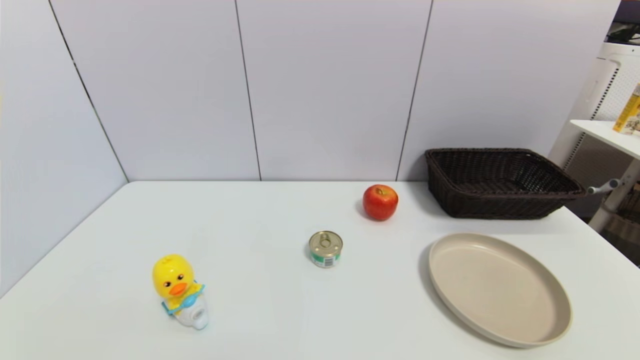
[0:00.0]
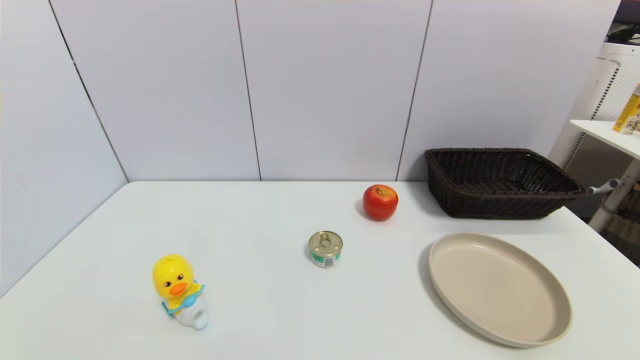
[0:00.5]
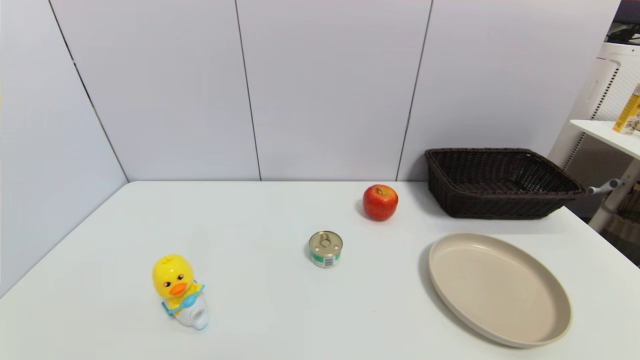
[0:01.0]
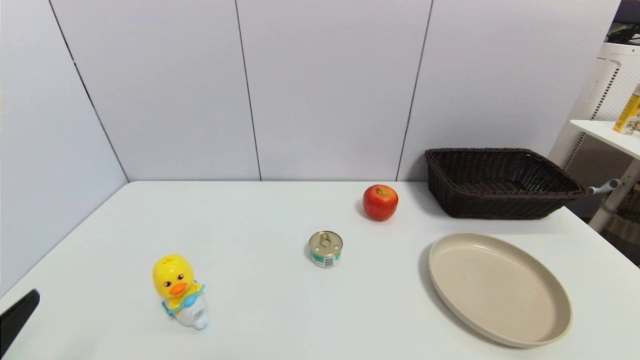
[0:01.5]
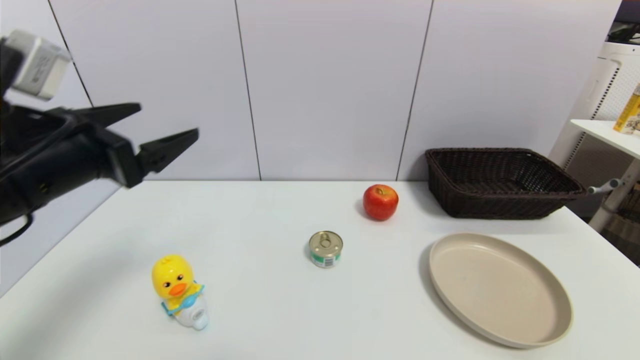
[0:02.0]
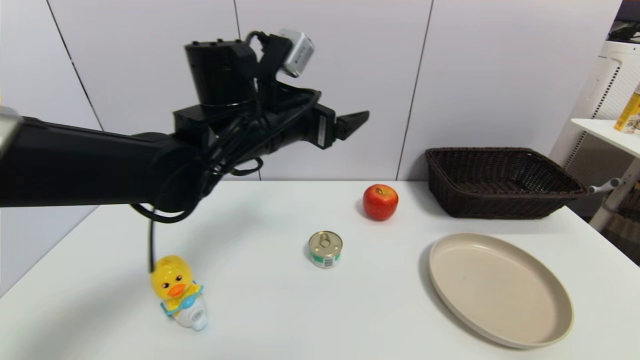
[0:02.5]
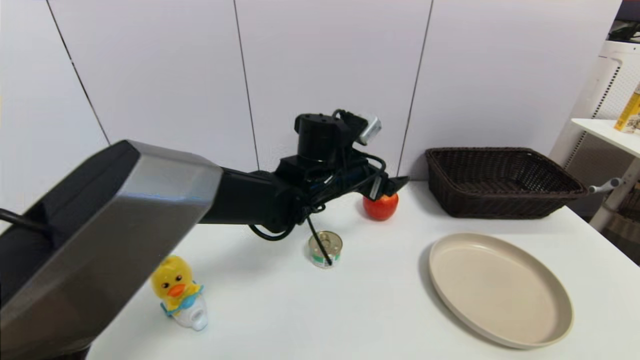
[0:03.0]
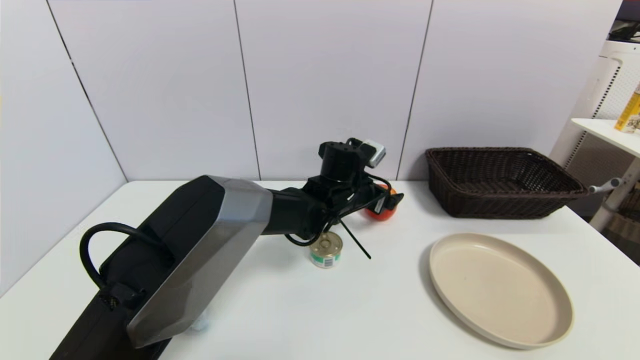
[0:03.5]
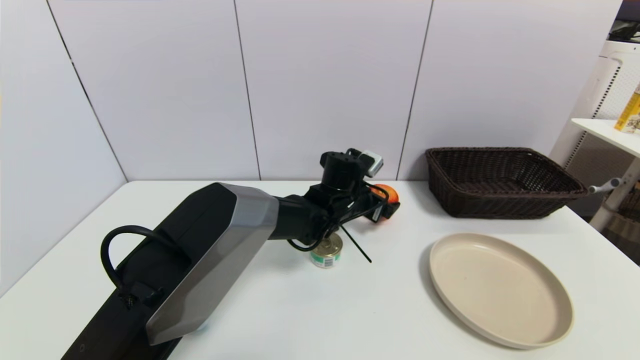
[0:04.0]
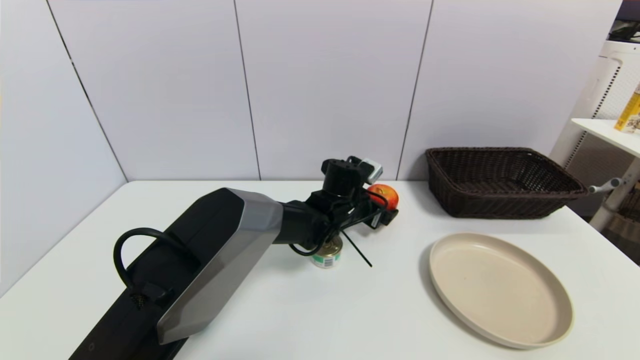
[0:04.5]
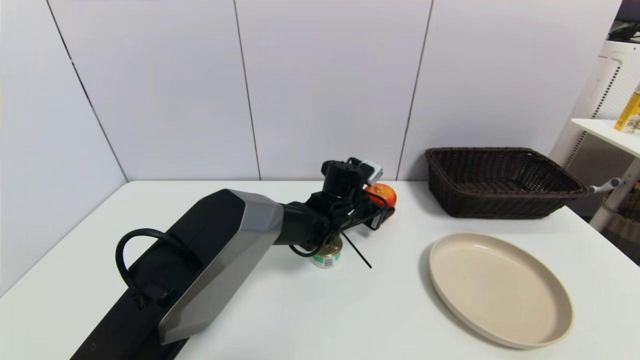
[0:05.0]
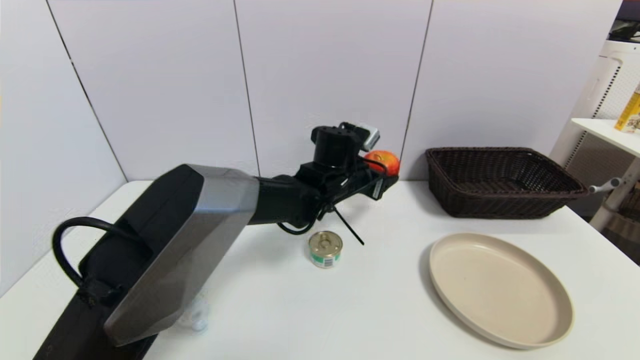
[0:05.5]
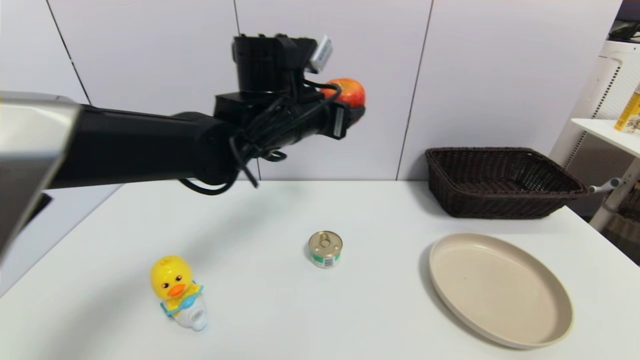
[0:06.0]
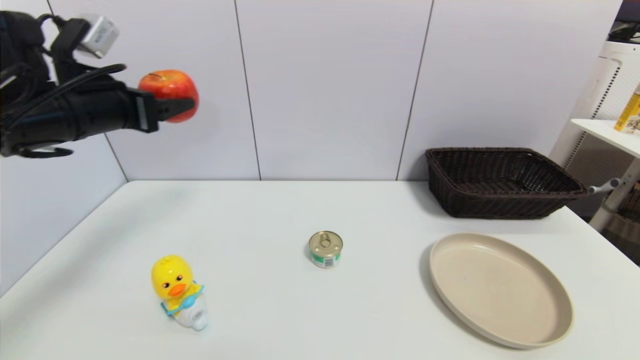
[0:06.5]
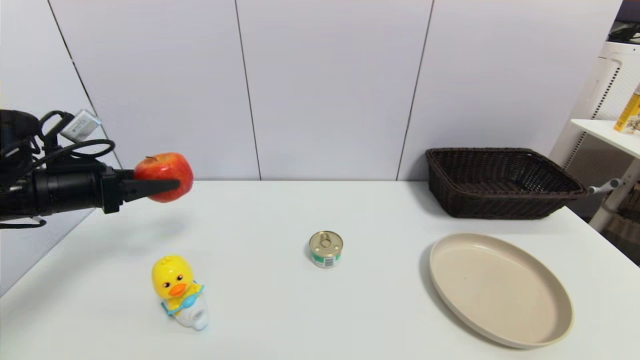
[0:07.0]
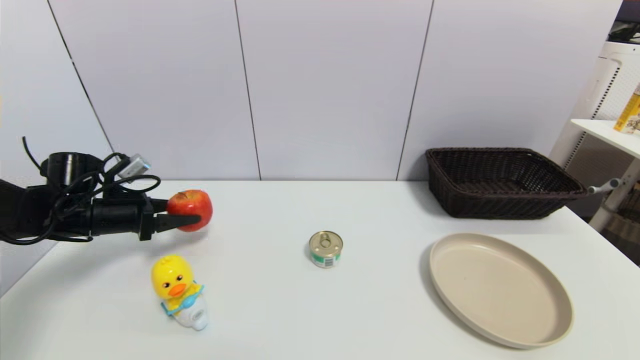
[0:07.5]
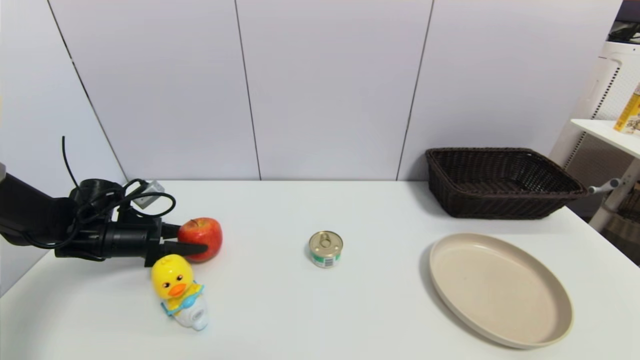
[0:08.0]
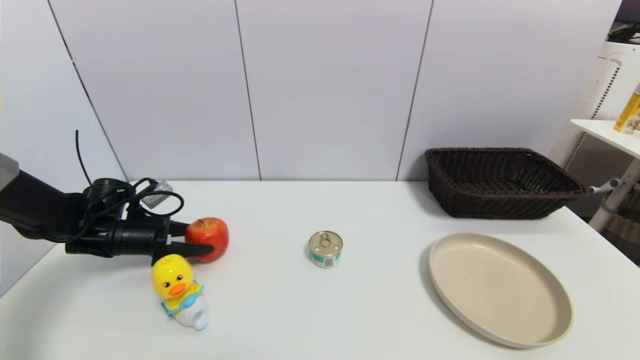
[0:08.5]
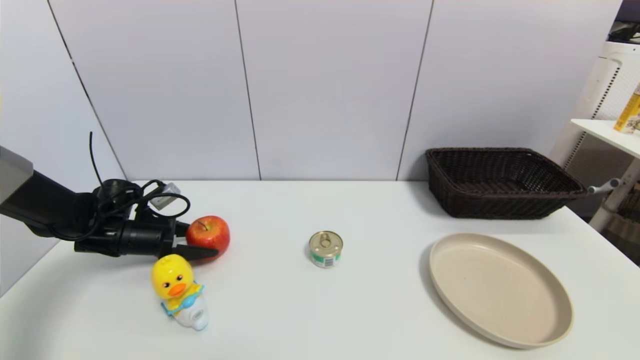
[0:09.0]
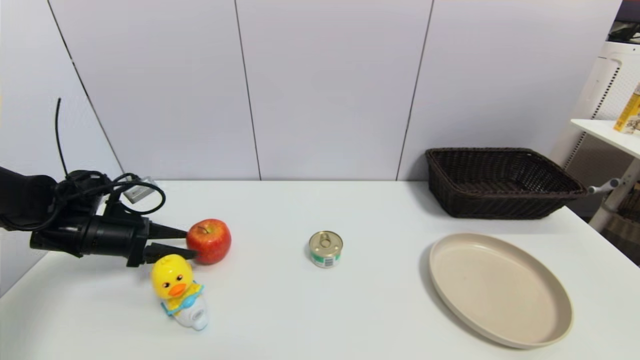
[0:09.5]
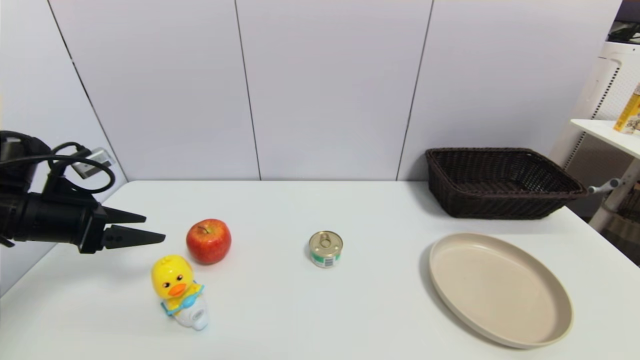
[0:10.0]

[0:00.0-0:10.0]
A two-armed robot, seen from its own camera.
Task of the whole recording: put the apple in the designated position.
Step, 0:01.5 to 0:04.5: Grasp the apple with left gripper.
Step, 0:05.0 to 0:09.5: Place the apple on the table with left gripper.
0:00.0 to 0:02.0: The left gripper travels forward and upward by approximately 30 cm.
0:02.0 to 0:04.0: The left gripper is displaced to the right, downward and forward by roughly 40 cm.
0:04.0 to 0:06.0: The left gripper heads upward and to the left, covering some 20 cm, and closes up.
0:06.0 to 0:08.0: The left gripper moves to the left and downward, about 35 cm.
0:08.0 to 0:10.0: The left gripper heads upward and backward, covering roughly 15 cm, and opens.

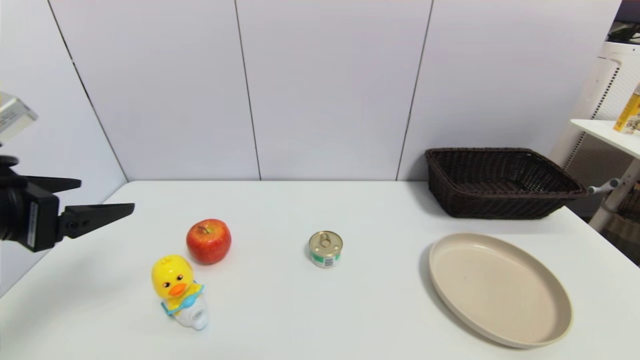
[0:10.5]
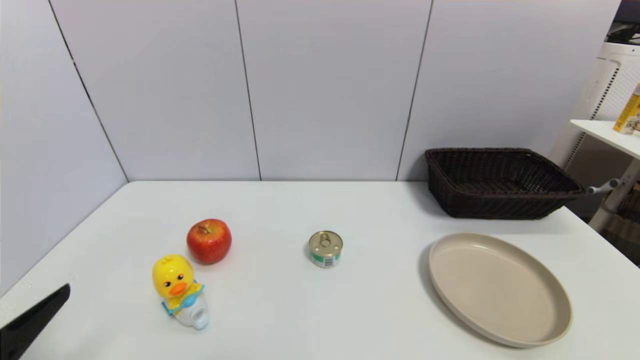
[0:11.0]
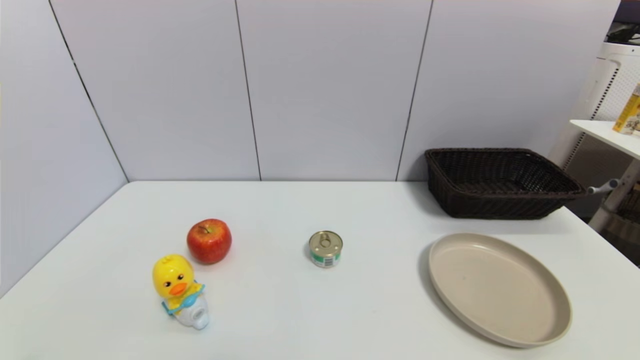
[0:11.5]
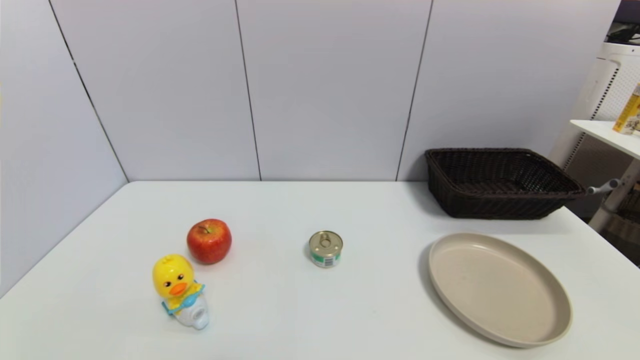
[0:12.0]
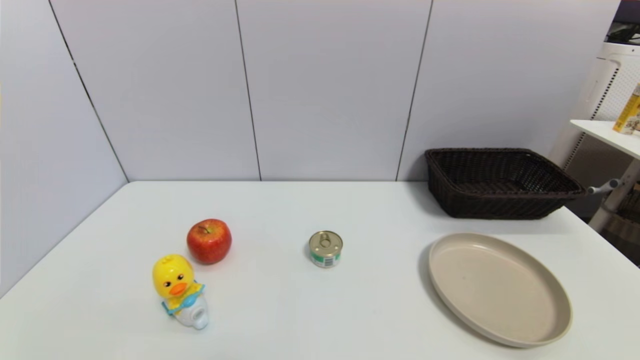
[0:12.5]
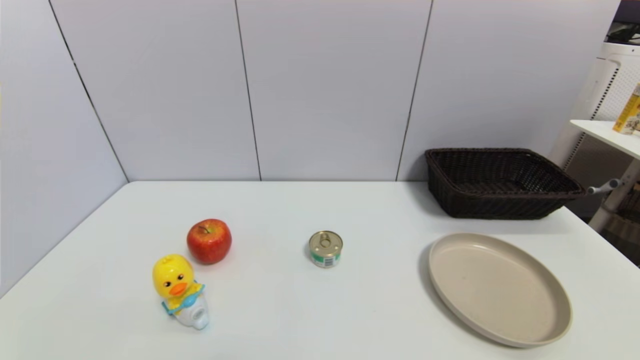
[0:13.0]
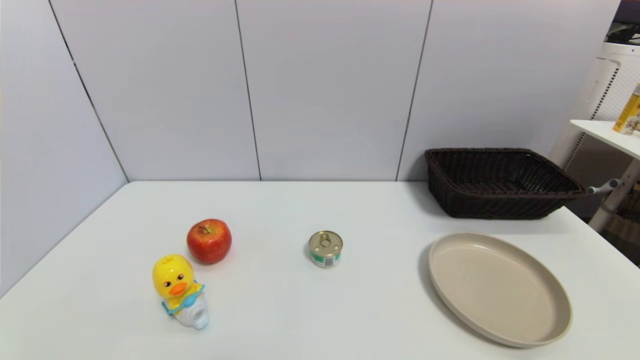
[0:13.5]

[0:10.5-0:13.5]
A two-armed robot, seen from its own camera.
Task of the whole recording: put the apple in the designated position.
0:10.5 to 0:12.0: The left gripper goes approximately 25 cm downward and backward.
0:12.0 to 0:13.5: The two grippers keep their place.
